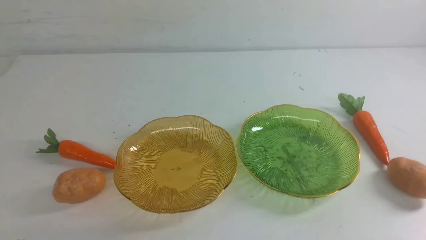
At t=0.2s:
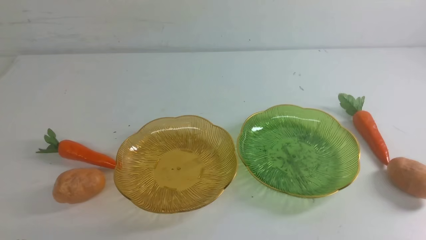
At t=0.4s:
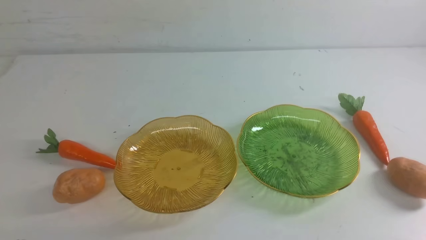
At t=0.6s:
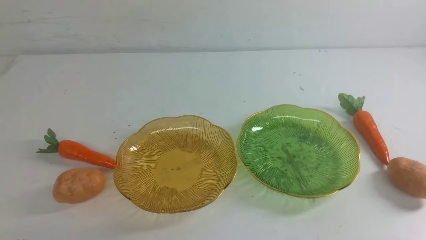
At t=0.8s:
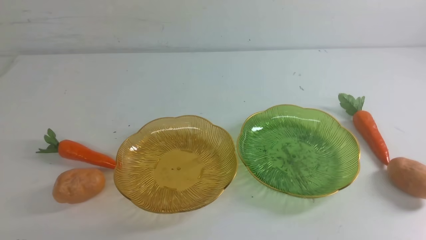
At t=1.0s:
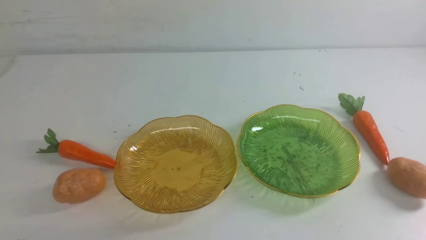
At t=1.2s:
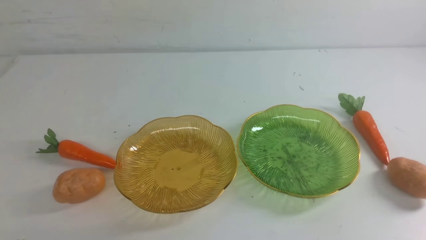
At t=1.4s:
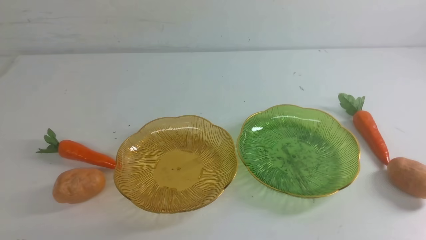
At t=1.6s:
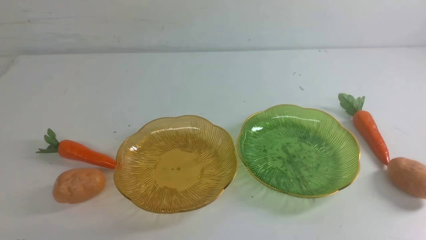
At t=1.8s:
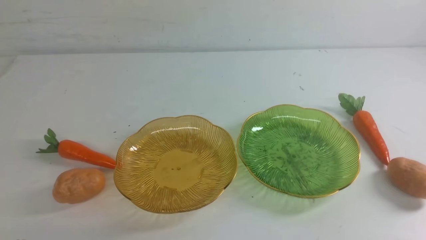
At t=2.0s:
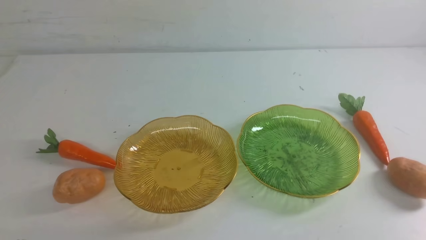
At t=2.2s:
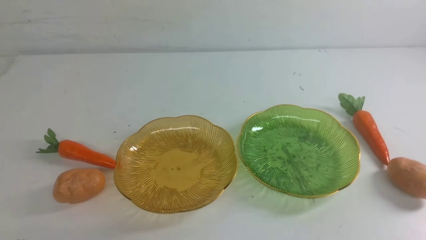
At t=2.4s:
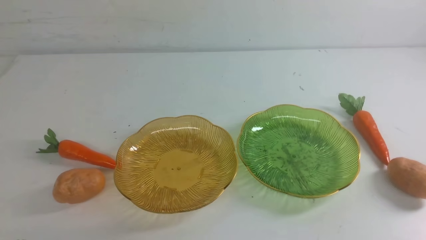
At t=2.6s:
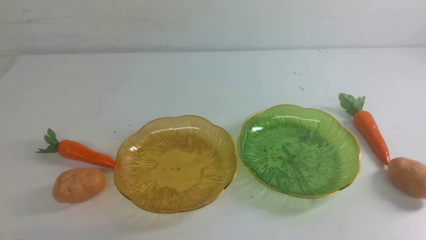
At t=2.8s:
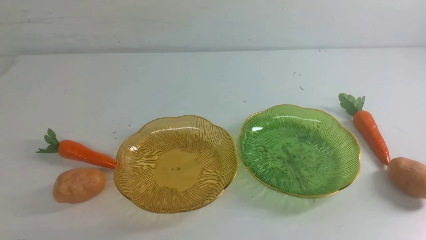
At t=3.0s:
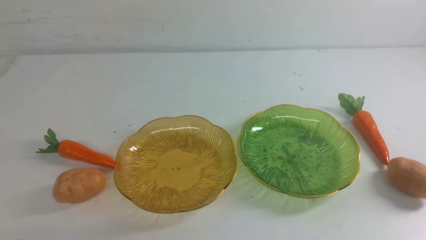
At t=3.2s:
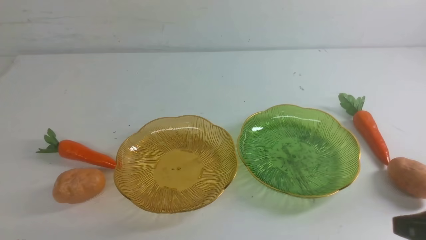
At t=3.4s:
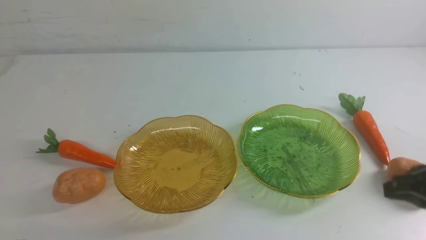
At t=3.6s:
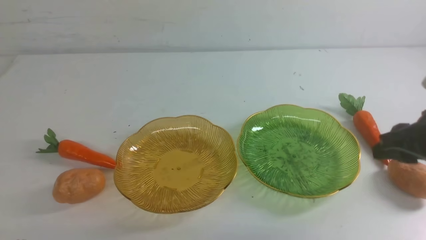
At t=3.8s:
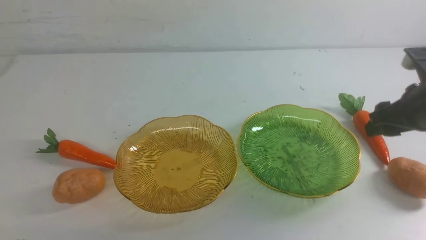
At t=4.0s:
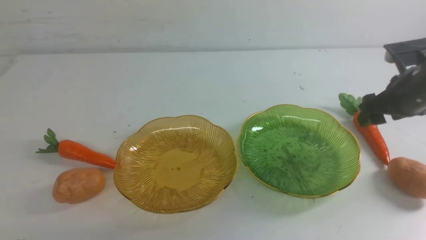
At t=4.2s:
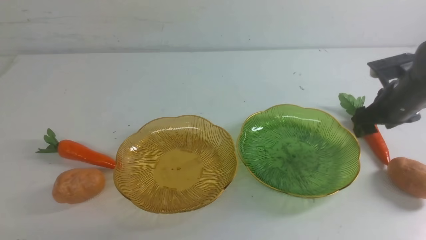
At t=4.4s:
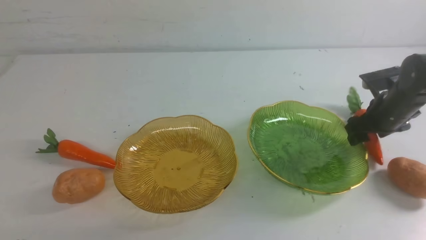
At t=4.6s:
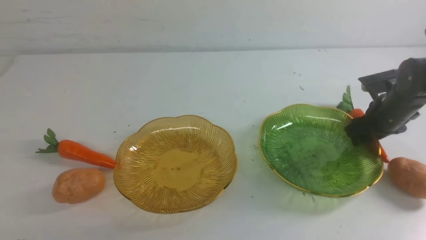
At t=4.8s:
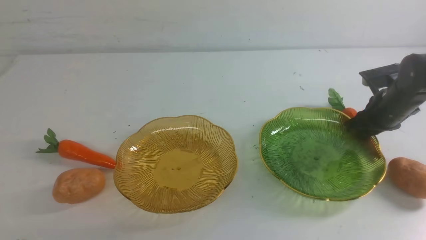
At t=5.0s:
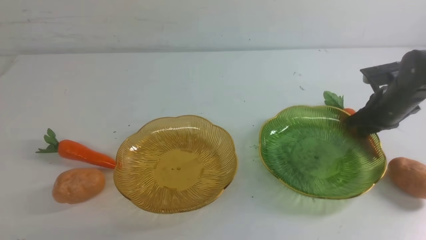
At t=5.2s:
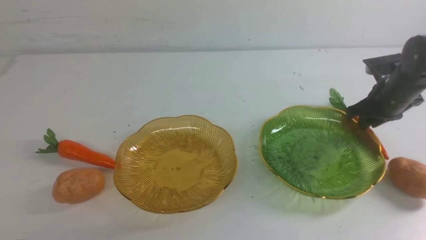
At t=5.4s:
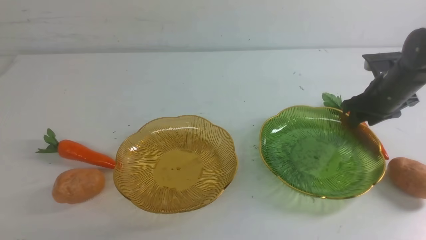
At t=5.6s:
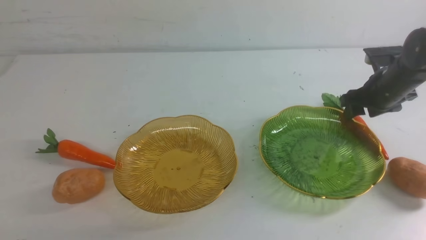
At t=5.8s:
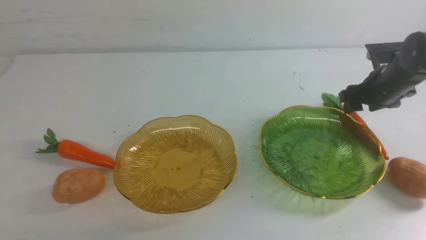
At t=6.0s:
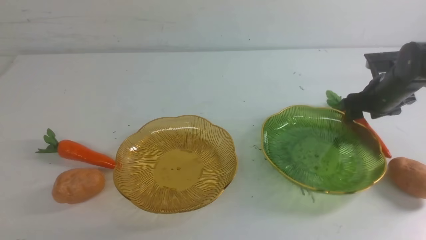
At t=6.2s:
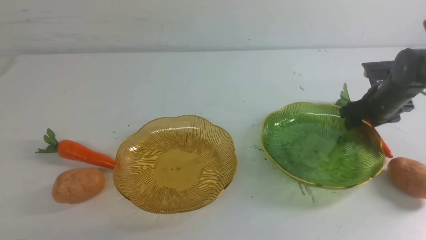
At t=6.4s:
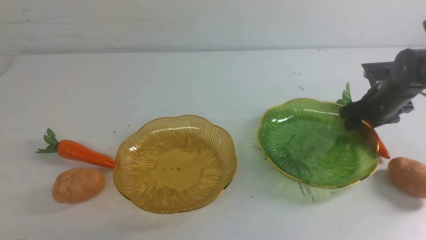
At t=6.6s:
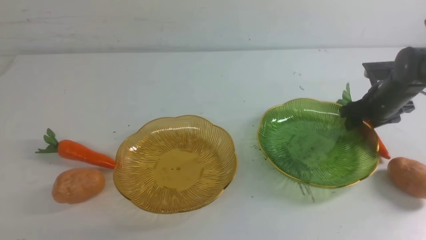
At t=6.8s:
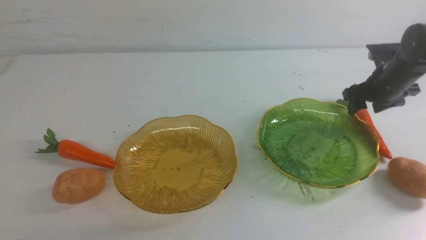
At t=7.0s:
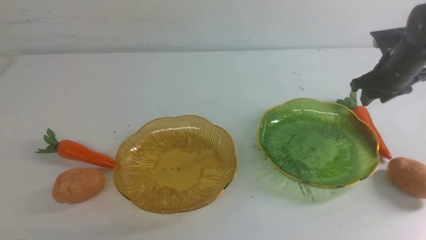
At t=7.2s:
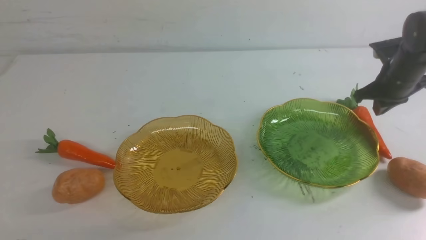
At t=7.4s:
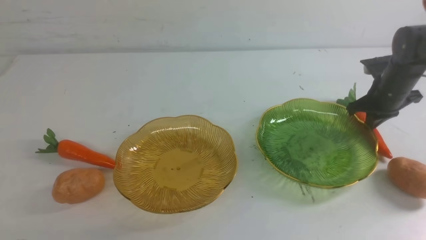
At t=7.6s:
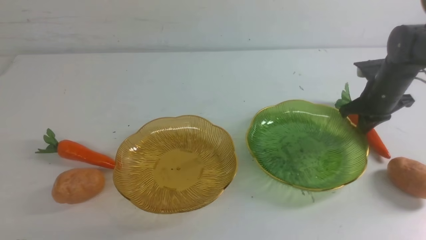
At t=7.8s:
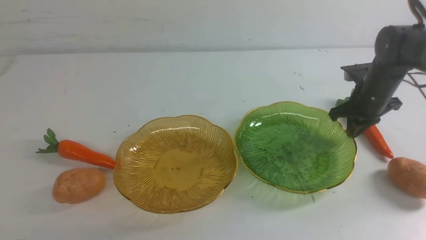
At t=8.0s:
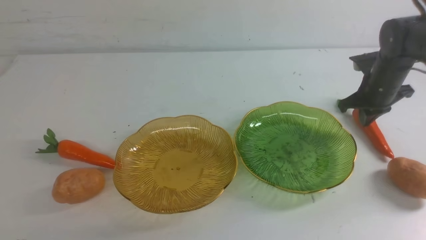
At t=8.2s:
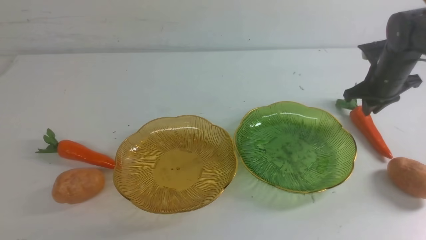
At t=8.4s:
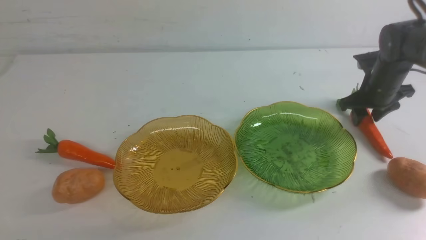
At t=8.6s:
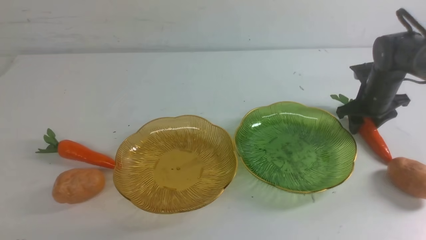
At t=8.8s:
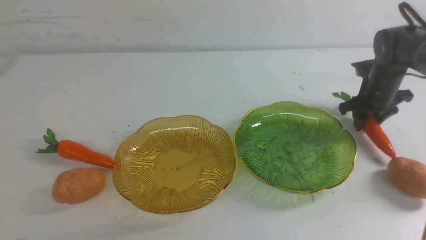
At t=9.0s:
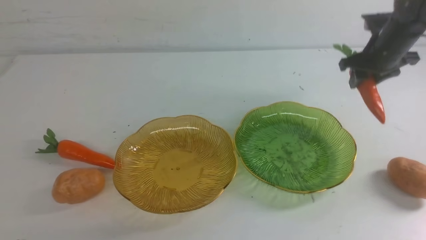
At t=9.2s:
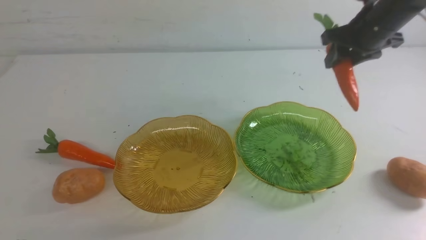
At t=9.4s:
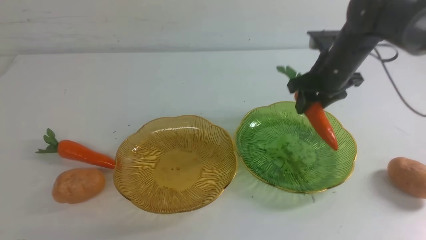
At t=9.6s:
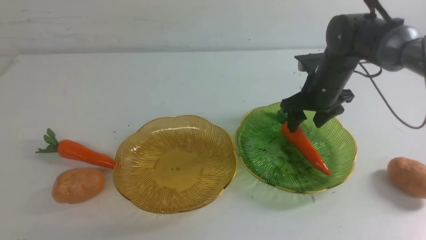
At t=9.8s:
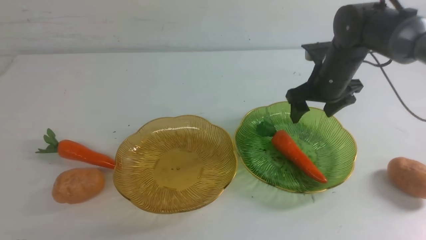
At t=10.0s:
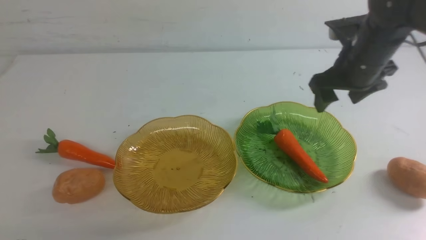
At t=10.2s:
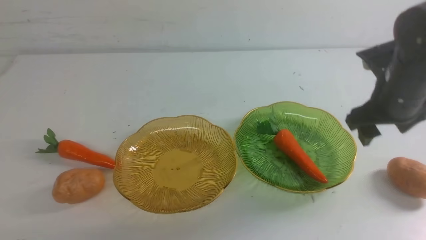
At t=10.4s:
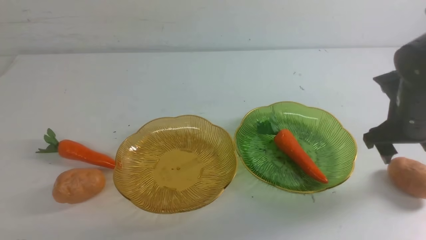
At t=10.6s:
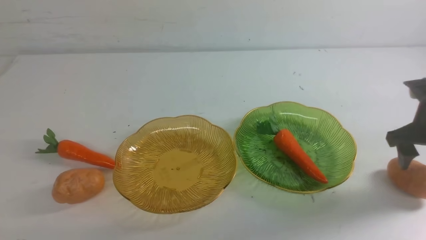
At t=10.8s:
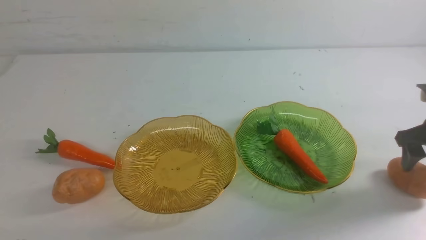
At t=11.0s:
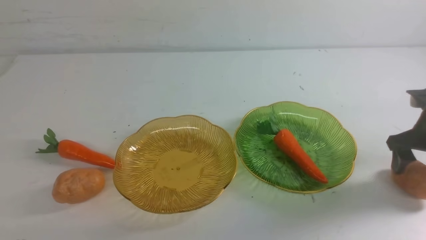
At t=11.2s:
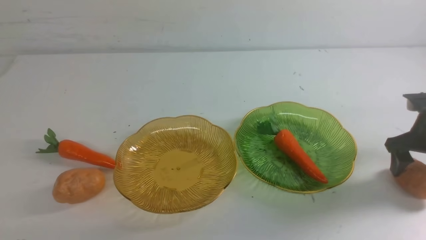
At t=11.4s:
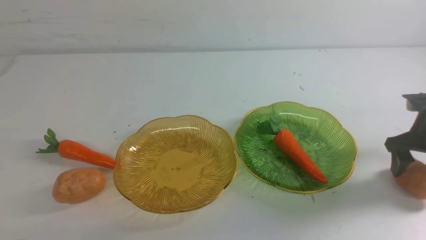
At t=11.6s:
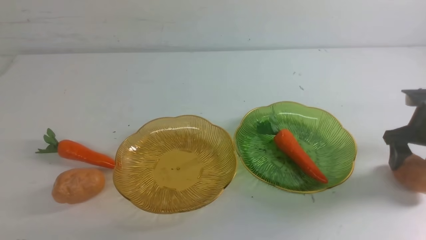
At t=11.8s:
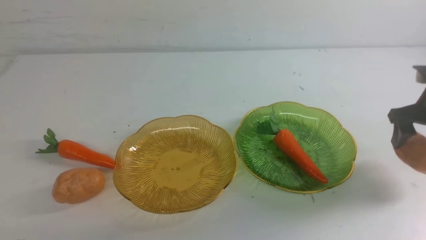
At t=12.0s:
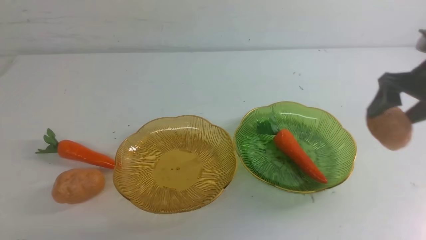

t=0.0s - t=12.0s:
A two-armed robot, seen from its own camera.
Step, t=0.0s - t=9.6s: use the right arm to grab a carrot and put it into the right plate.
t=0.0s - t=1.6s: Neither gripper changes place.
t=3.0s - t=4.4s: The right gripper heads forward, covering approximately 30 cm, and opens.
t=4.4s - t=6.0s: The right gripper closes and opens again.
t=6.0s - t=7.6s: The right gripper closes.
t=7.6s - t=9.0s: The right gripper is displaced upward by some 10 cm, and opens.
t=9.0s - t=10.4s: The right gripper moves backward, approximately 15 cm, and opens up.

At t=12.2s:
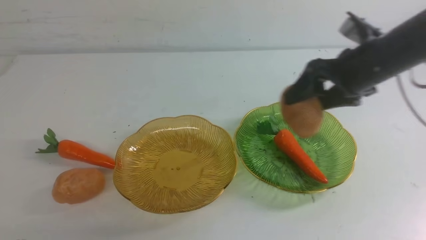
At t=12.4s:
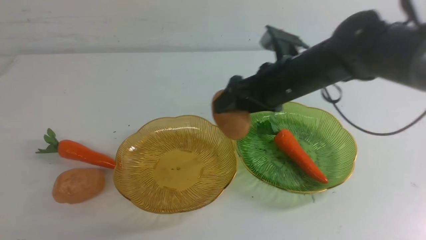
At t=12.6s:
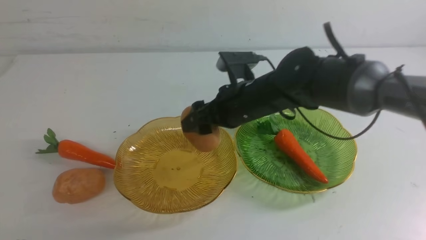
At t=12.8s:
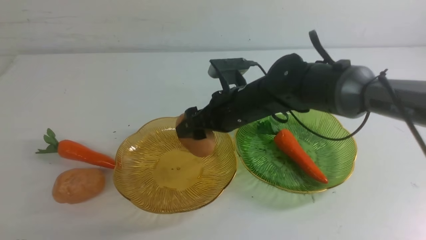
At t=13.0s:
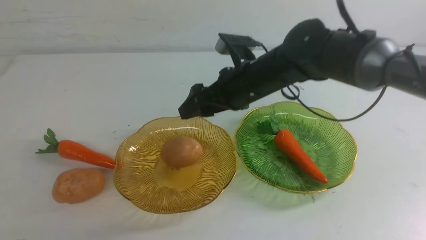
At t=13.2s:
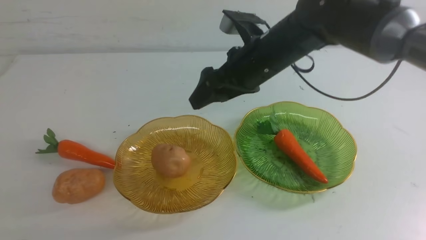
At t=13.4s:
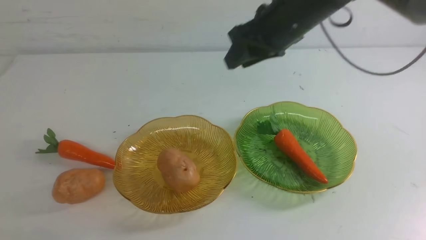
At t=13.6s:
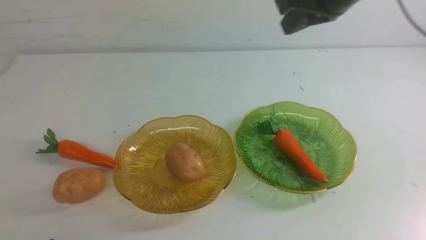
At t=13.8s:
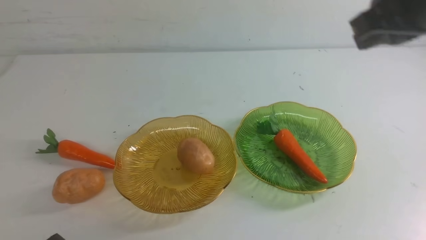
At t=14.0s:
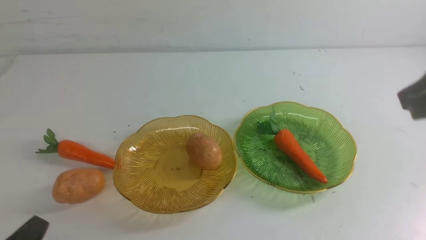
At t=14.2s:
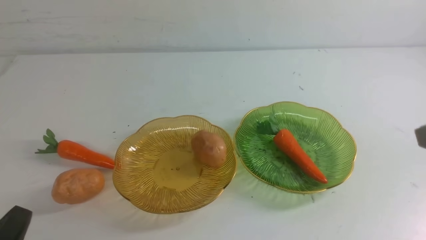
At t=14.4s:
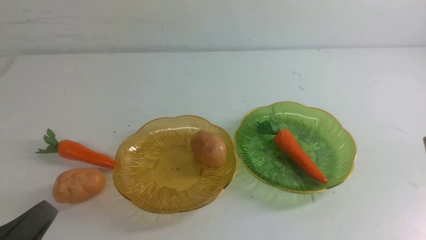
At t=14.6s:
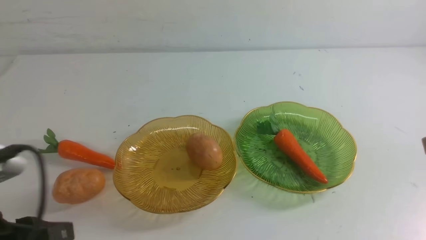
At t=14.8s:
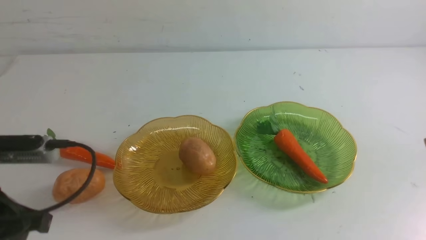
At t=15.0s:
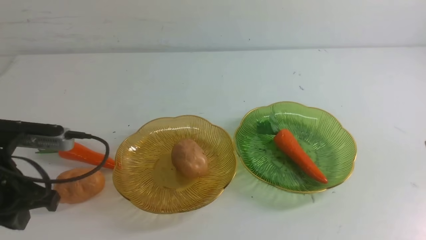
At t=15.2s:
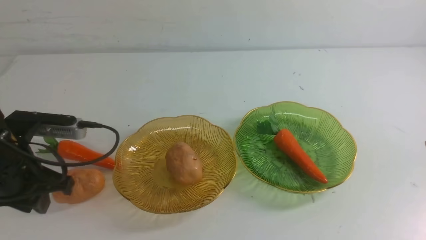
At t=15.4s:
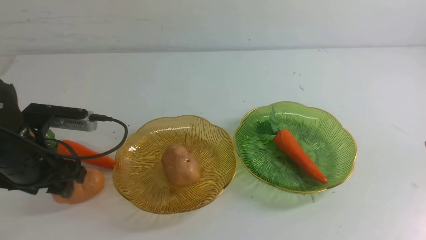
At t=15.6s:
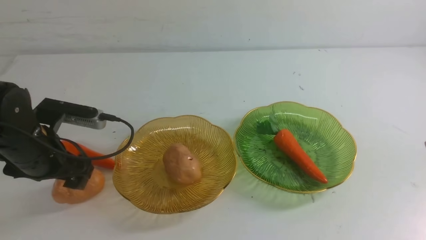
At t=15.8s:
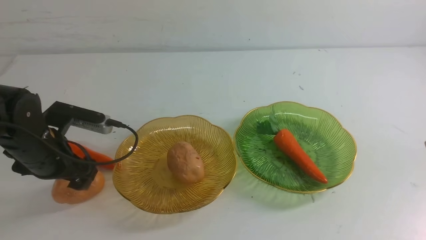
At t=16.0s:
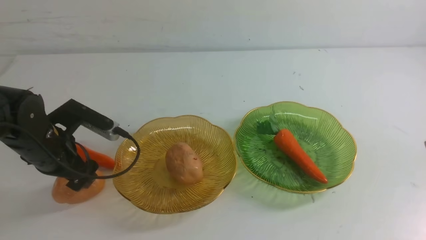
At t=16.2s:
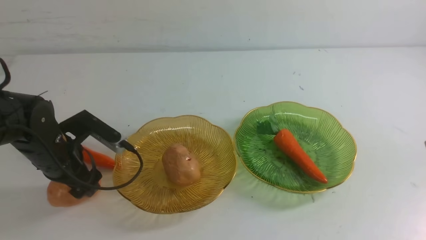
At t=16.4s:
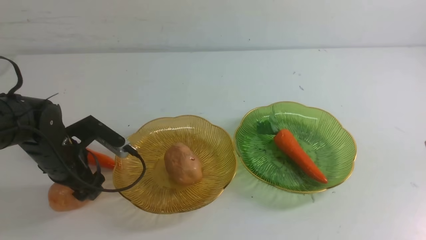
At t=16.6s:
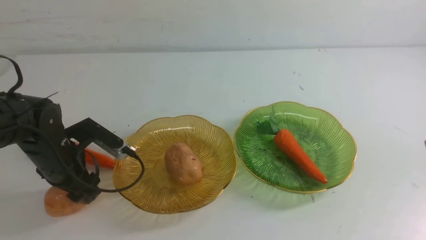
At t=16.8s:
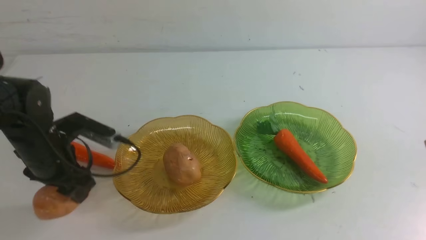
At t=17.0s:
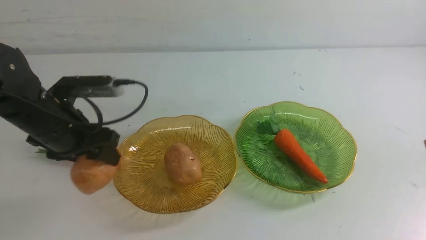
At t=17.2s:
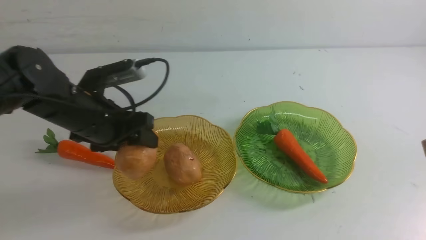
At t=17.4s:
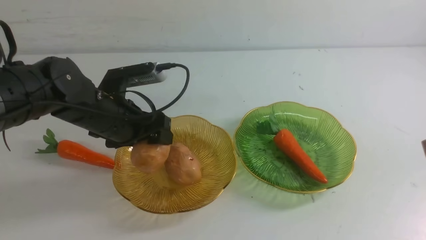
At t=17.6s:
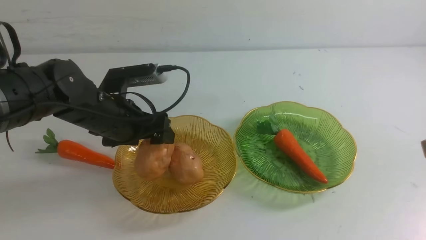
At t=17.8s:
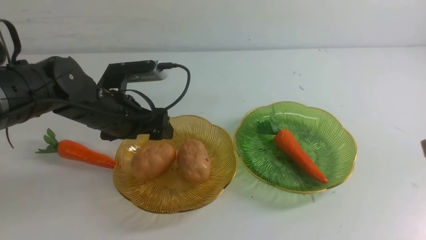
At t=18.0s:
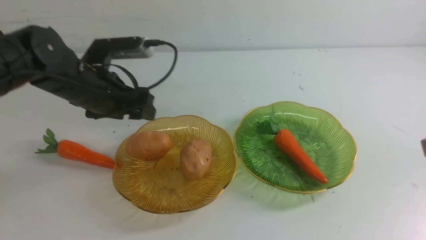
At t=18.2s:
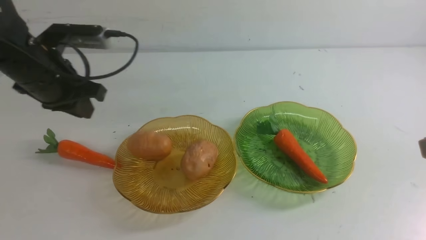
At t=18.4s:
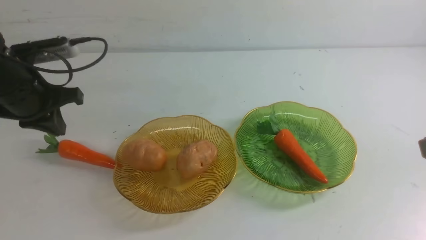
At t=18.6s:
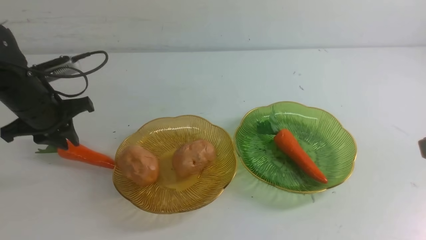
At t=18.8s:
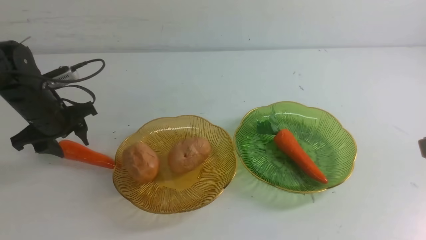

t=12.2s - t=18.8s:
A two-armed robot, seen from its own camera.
Step, t=13.0s - t=17.6s: Grab a potato with your left arm and put it on the left plate.
t=12.2s - t=13.8s: The right gripper is displaced backward and upward by about 20 cm, moves approximately 15 cm to the left and comes back, and closes up.
t=13.8s - t=15.4s: The right gripper goes some 5 cm backward; the left gripper heads forward, covering some 25 cm, and opens up.
t=15.4s - t=17.2s: The left gripper shifts roughly 10 cm to the right.
t=17.2s - t=18.8s: The left gripper moves to the left and forward, some 15 cm, and closes, then reopens.
